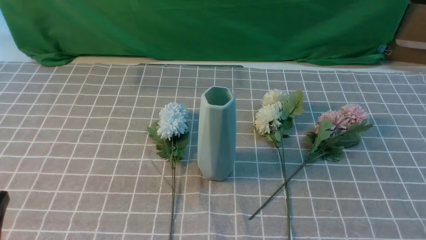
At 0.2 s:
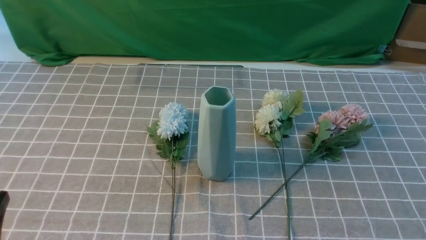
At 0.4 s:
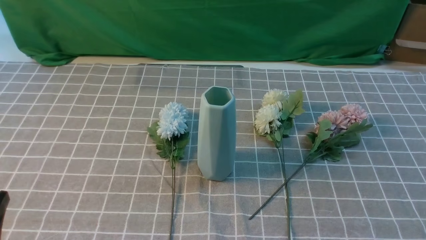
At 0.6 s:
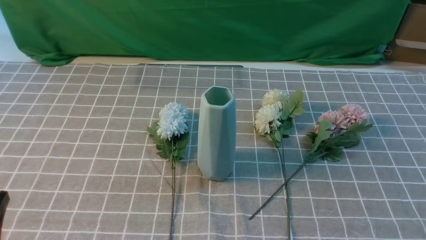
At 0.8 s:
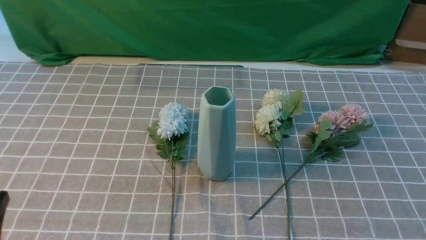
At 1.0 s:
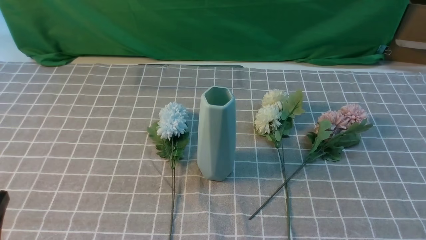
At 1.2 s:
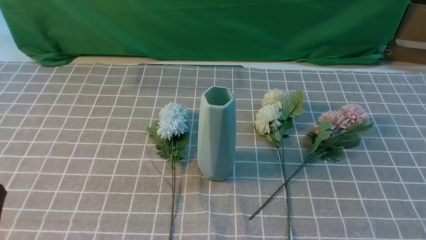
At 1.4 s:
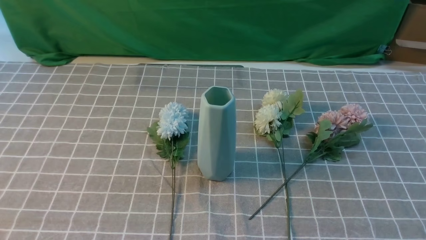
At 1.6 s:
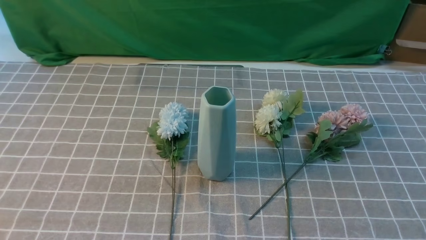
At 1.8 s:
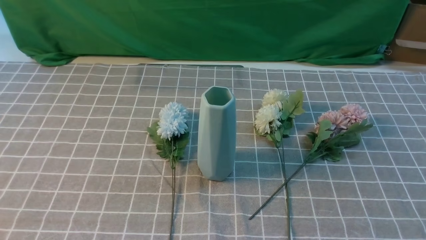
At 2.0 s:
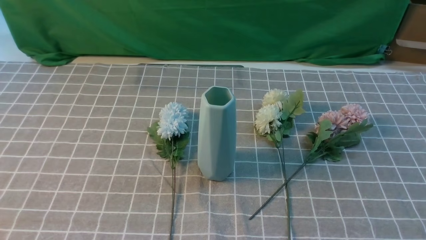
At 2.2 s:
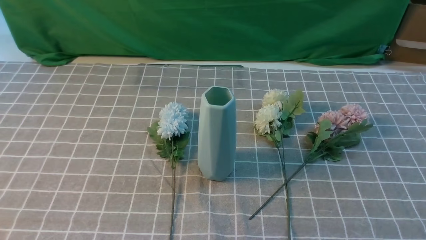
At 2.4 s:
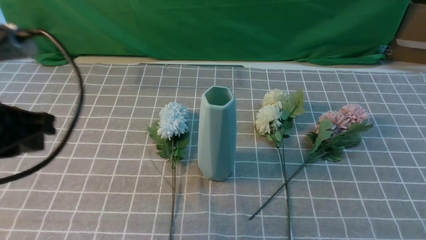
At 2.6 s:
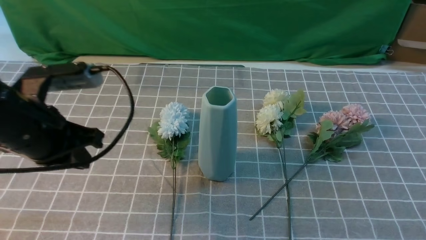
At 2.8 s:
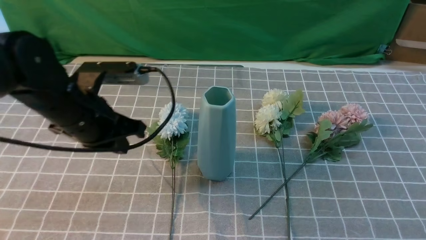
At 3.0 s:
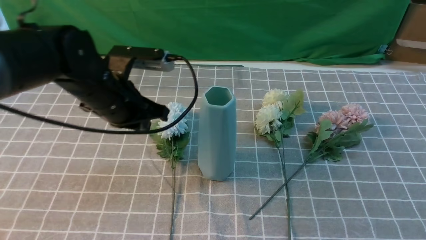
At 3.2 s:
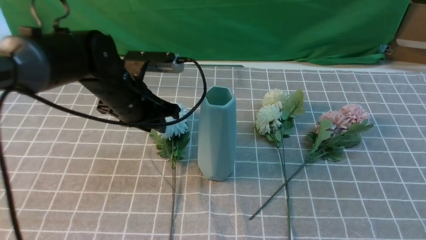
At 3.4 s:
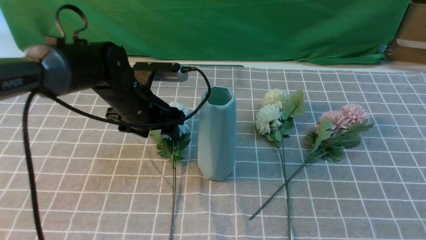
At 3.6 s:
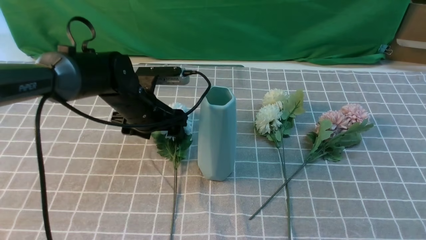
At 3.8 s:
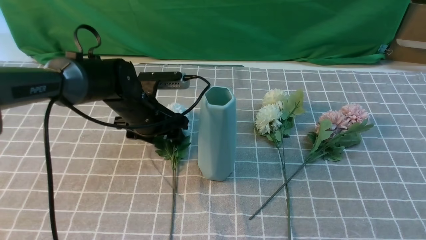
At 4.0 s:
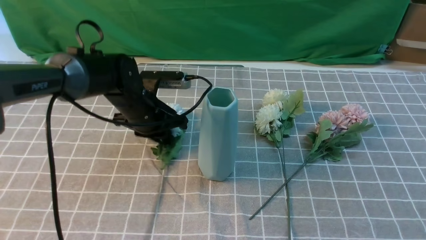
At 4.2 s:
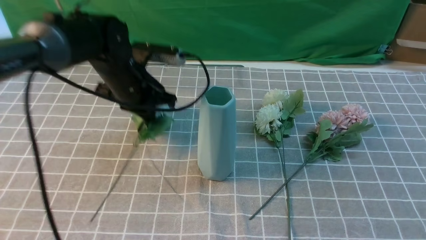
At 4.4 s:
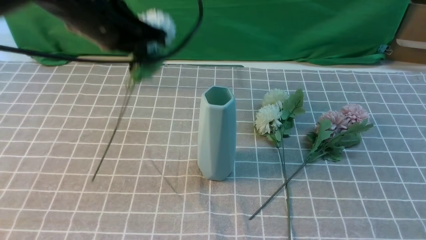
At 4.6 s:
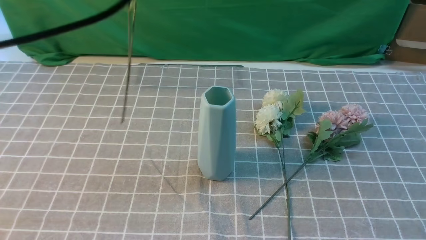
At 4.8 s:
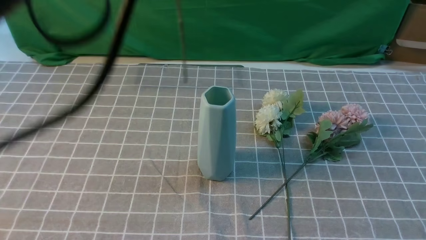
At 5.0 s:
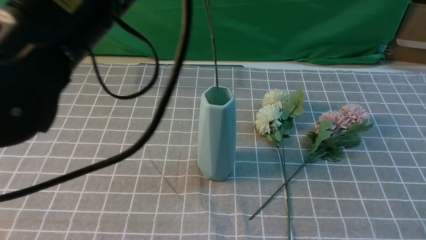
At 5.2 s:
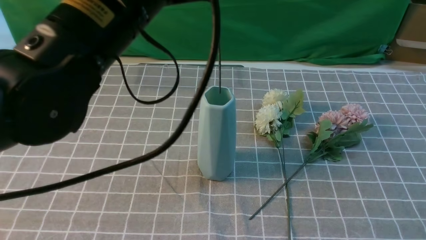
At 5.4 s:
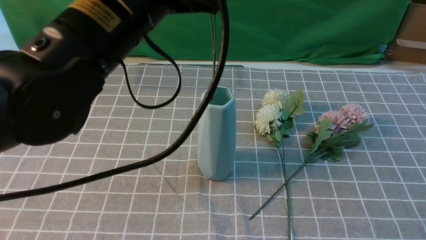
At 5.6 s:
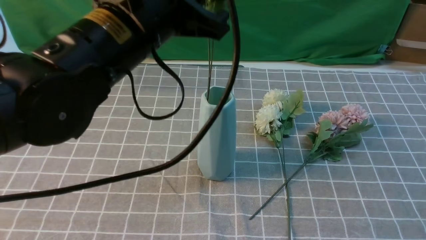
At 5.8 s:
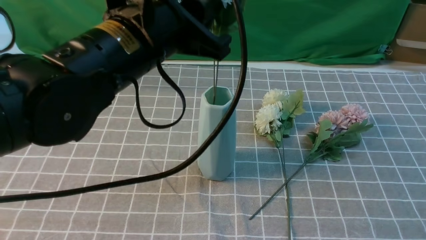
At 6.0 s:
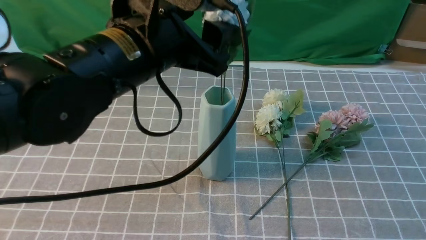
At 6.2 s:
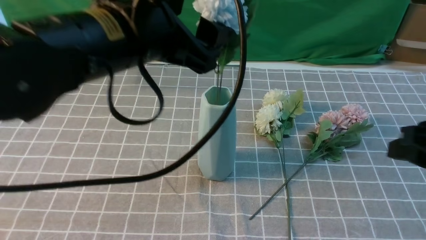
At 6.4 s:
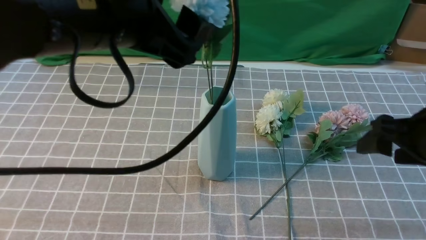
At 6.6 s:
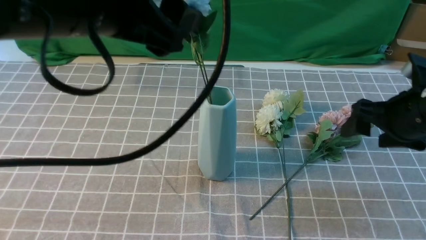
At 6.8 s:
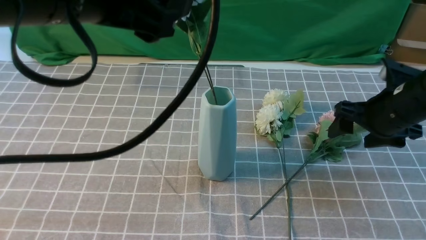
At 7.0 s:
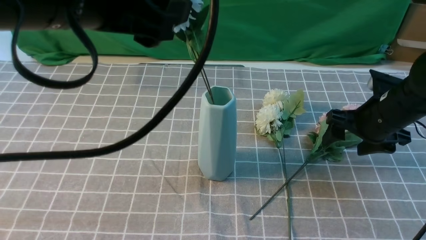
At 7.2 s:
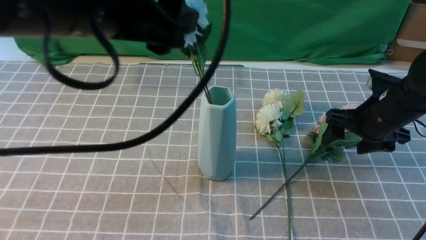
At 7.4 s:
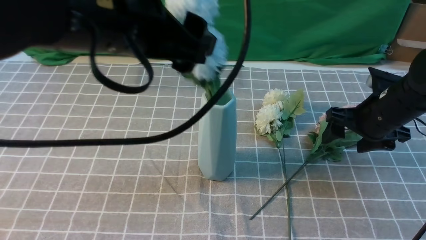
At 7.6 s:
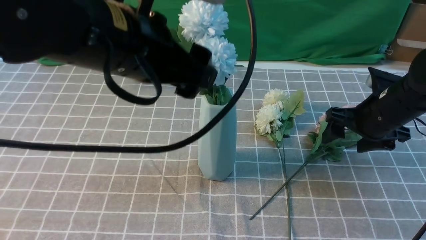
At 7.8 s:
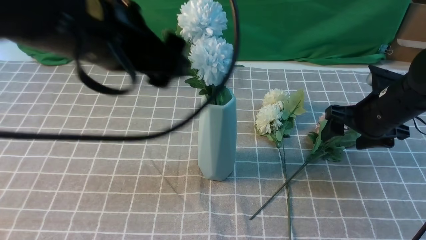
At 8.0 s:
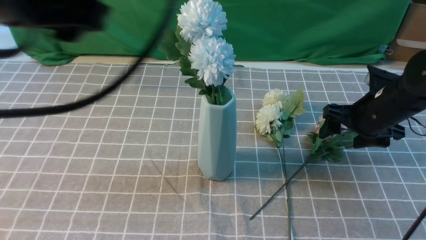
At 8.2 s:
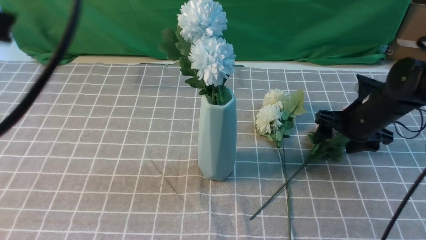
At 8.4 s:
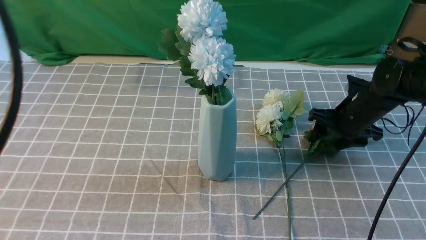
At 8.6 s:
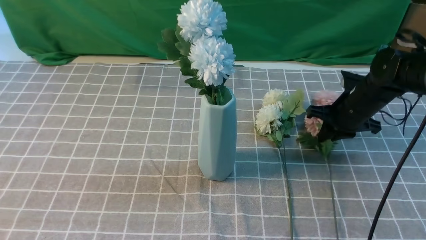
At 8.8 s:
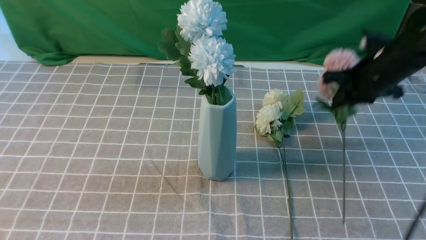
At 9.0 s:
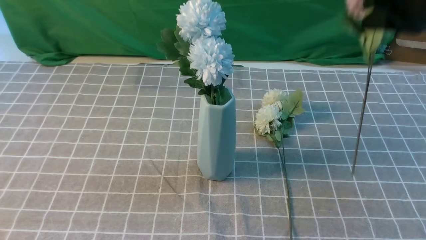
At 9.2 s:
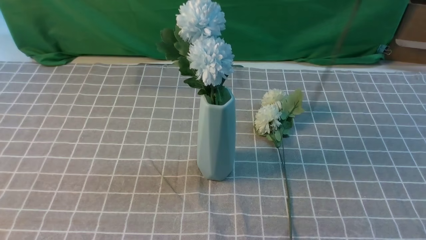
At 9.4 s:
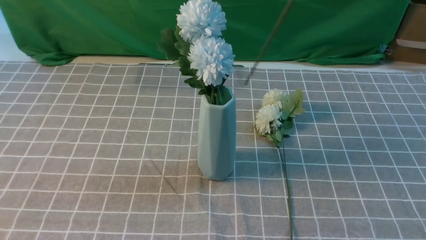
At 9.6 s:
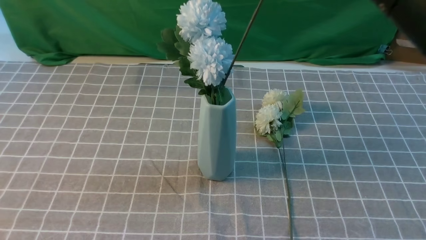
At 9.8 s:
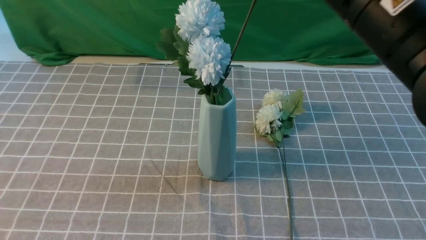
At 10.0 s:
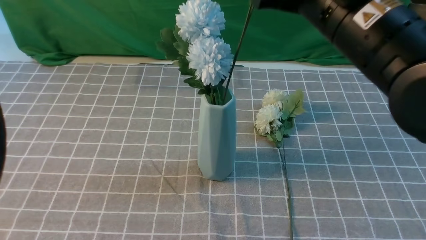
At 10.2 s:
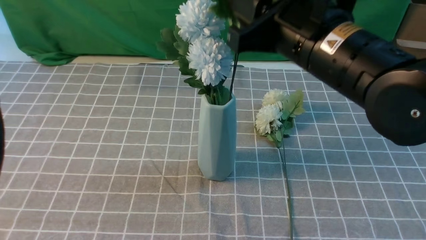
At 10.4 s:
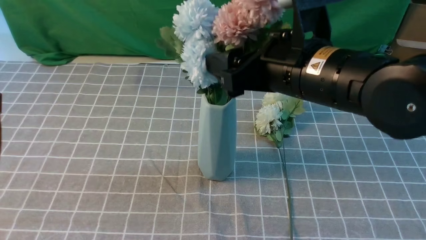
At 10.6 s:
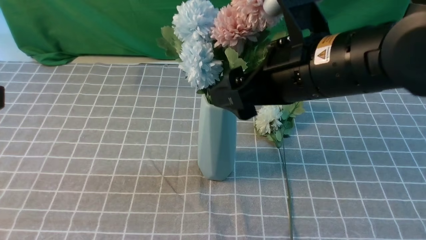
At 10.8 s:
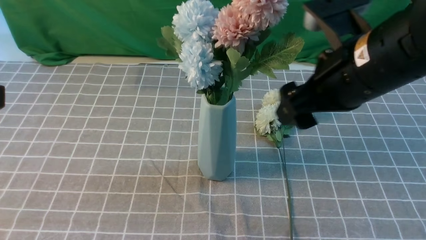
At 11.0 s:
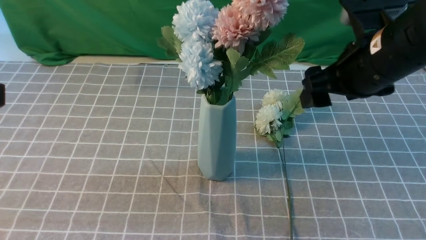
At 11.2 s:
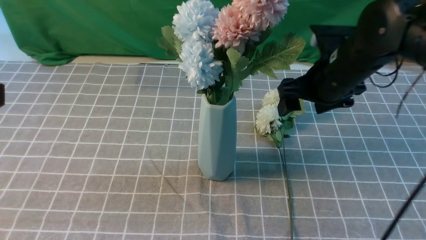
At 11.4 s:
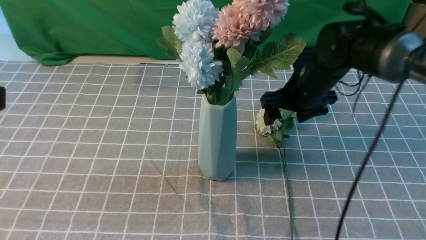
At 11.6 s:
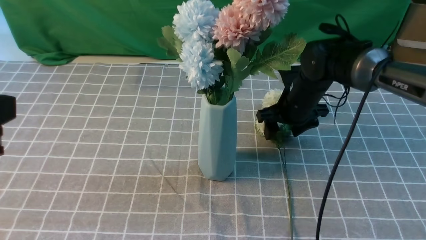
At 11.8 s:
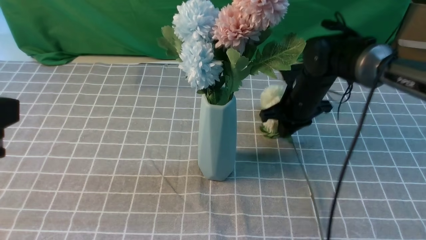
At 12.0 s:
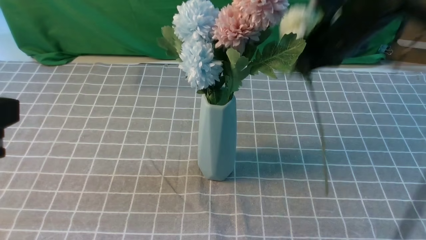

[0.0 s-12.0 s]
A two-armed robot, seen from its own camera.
Task of the whole recording: insert the flowers into the vase on the table with the grey tablecloth.
Step, 0.0 to 3.8 s: use the left arm to grab a bunch of fresh flowers.
Step, 4.2 to 7.6 s: use the left arm to insert the flowers into the vase.
Step, 7.8 to 8.6 s: use the right arm to grab a bunch of fresh flowers.
Step, 8.8 to 10.6 s: use the right arm to insert the flowers into the vase.
Step, 10.8 to 11.6 s: use the right arm to grab a bunch of fresh flowers.
1.6 to 3.0 s: The right gripper shifts approximately 15 cm upward, while the left gripper is displaced forward by roughly 30 cm.
3.0 to 4.4 s: The left gripper is displaced upward by roughly 15 cm, and opens, then closes again.
4.4 to 6.0 s: The right gripper heads forward, covering roughly 5 cm. Meanwhile the left gripper heads backward and to the right, covering about 10 cm, and opens.
6.0 to 7.6 s: The right gripper moves forward and downward, about 25 cm, and opens up.
7.6 to 9.0 s: The right gripper travels upward by roughly 20 cm, and closes its fingers. The left gripper goes approximately 20 cm backward and to the left, and closes.
9.0 to 10.4 s: The right gripper goes about 15 cm to the left and backward, and opens its fingers.
10.4 to 12.0 s: The right gripper shifts about 15 cm forward and to the right, reaches some 15 cm downward, then returns, and closes.

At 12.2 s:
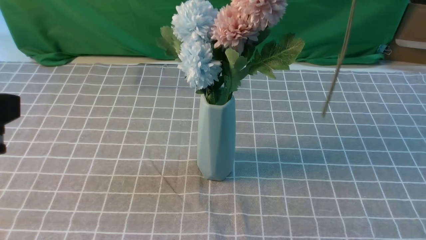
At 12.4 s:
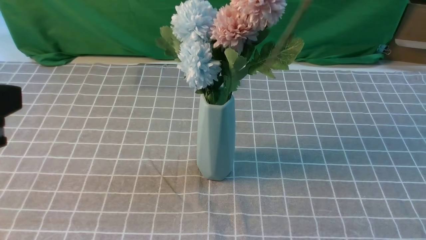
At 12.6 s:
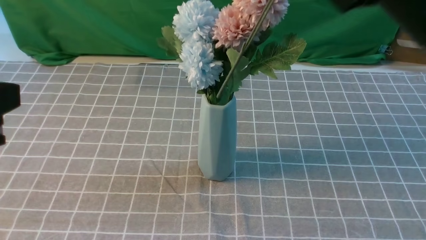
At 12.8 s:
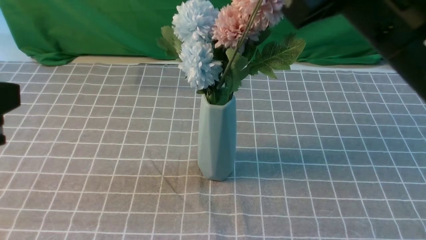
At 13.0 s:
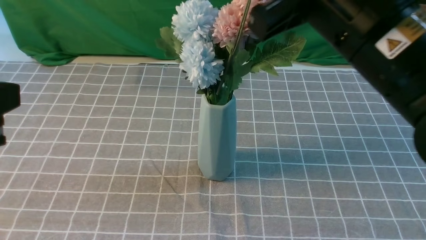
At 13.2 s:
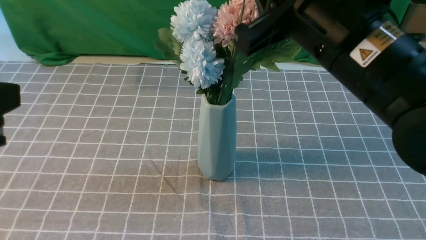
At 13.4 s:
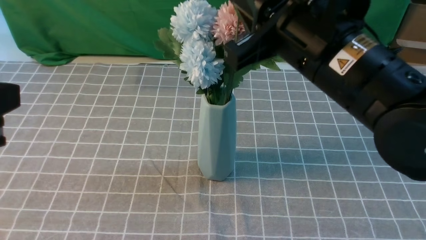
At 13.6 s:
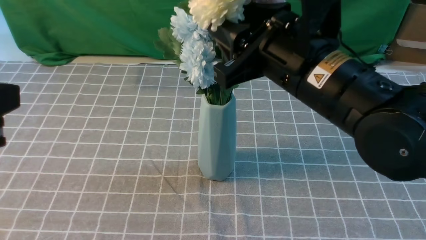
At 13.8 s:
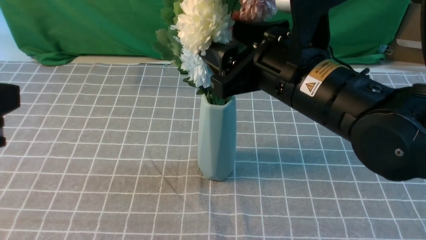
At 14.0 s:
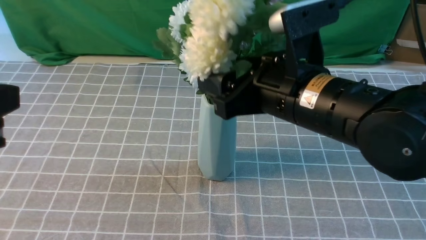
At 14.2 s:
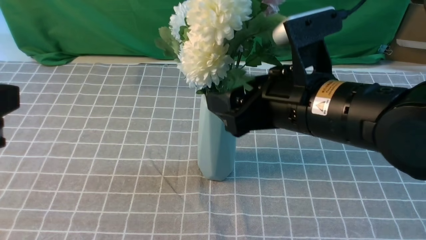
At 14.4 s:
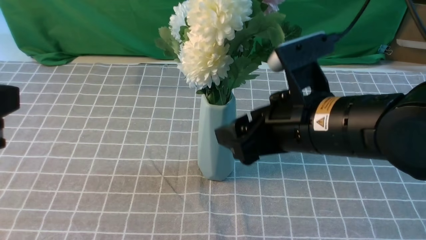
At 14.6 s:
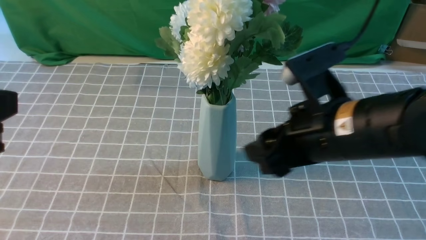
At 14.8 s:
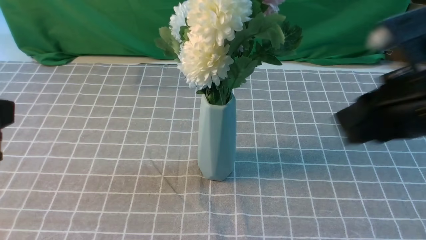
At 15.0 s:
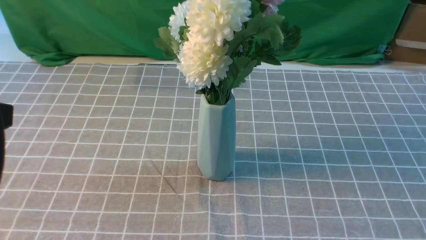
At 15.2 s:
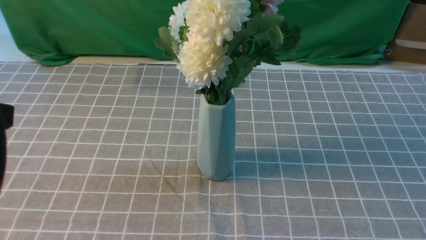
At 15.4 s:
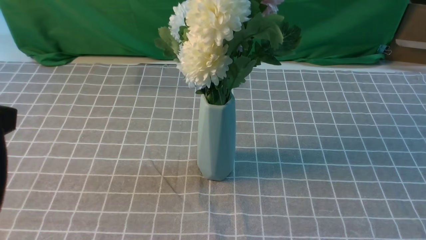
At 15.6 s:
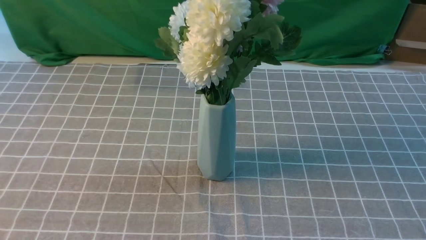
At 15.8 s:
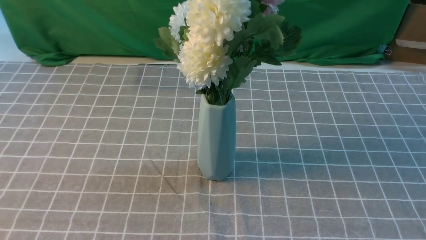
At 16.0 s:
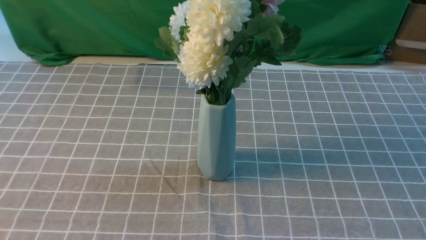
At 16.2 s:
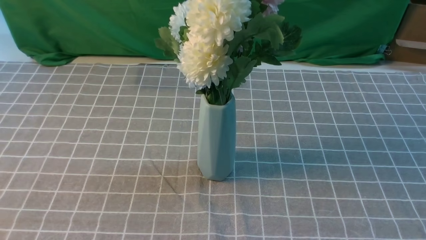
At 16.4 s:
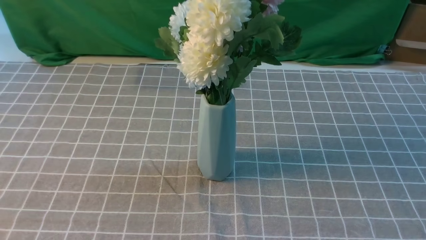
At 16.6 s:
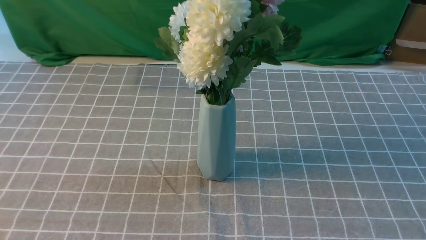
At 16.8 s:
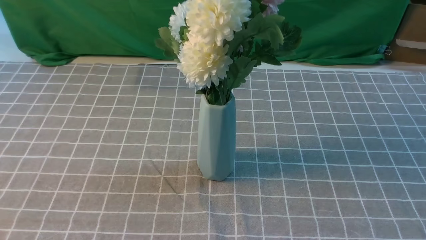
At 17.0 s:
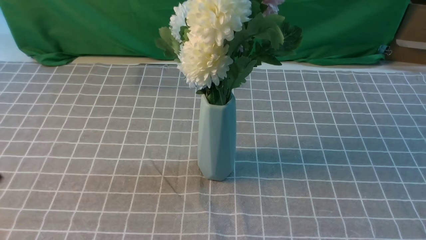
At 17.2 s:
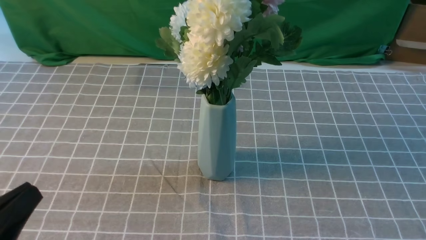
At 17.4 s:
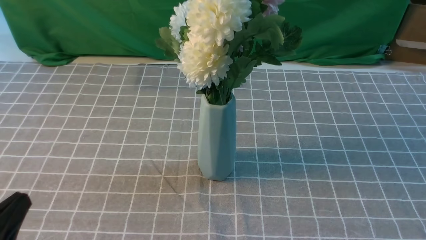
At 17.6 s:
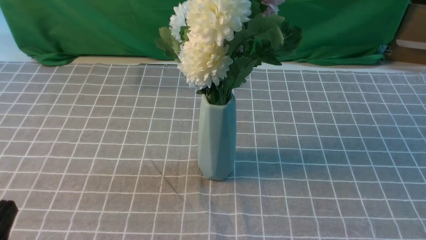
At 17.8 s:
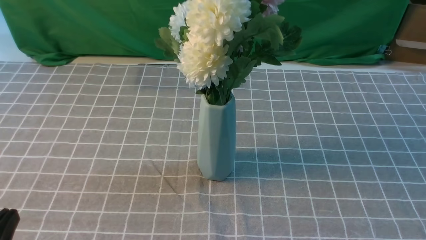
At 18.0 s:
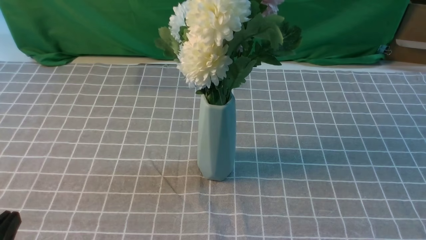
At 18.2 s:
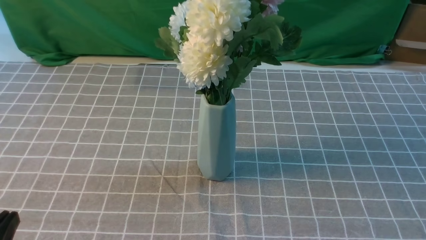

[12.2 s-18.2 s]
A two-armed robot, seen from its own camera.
Task of the whole recording: insert the flowers into the vase on the table with the grey tablecloth.
Step, 12.2 to 14.2 s: use the right arm to insert the flowers into the vase.
12.2 to 13.8 s: The right gripper moves downward and to the left, some 15 cm, and opens its fingers.
13.8 to 15.2 s: The right gripper travels to the right, backward and upward by about 30 cm, and closes.
15.2 to 16.6 s: The left gripper travels backward and downward by about 10 cm.
